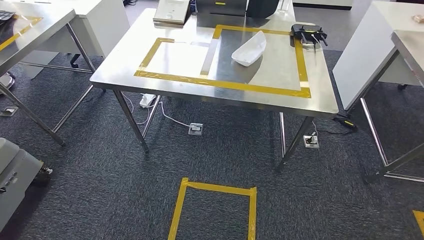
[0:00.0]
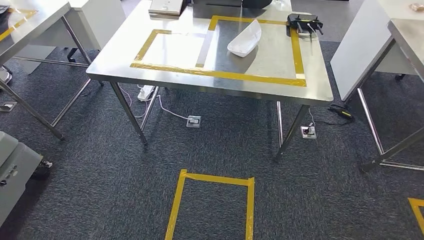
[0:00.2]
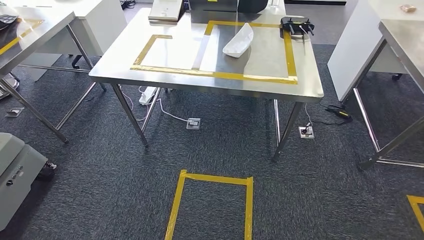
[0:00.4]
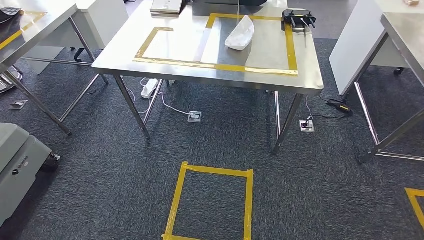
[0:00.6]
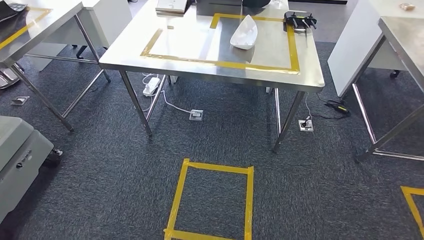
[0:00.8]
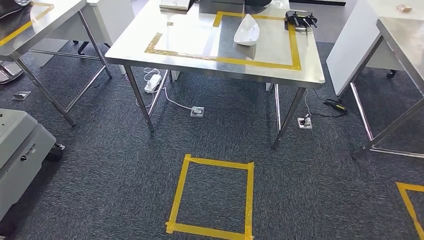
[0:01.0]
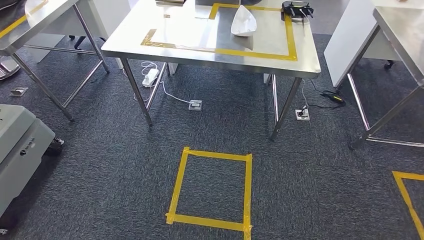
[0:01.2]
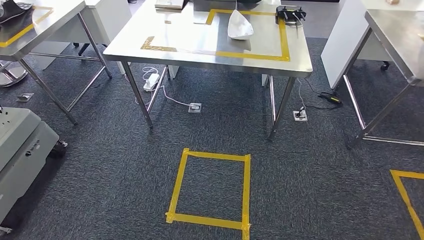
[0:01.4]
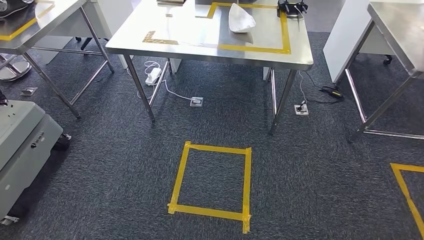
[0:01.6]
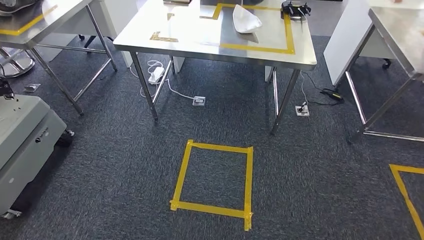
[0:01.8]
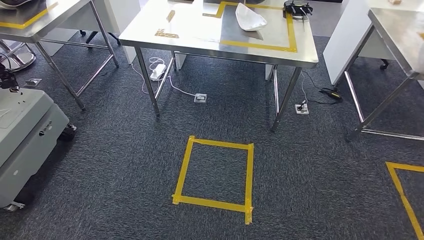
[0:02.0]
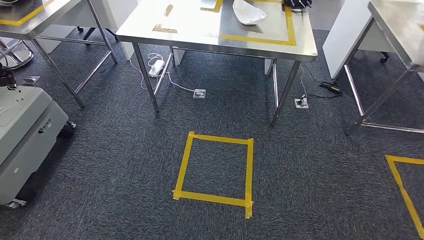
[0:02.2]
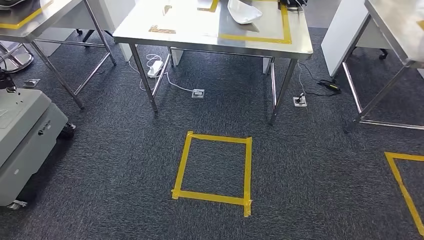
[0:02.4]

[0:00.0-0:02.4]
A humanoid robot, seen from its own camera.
Step, 0:00.0 to 0:02.2: Return to the initial position at the workbench.

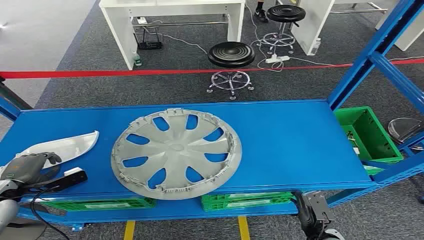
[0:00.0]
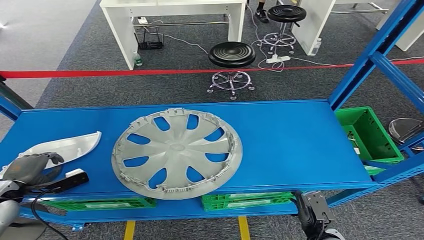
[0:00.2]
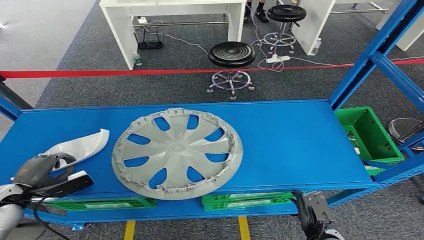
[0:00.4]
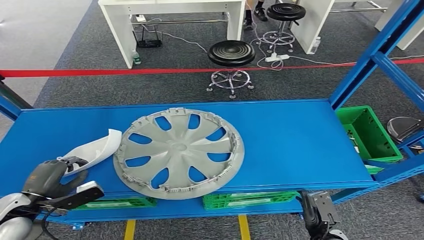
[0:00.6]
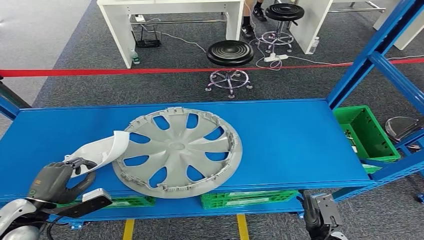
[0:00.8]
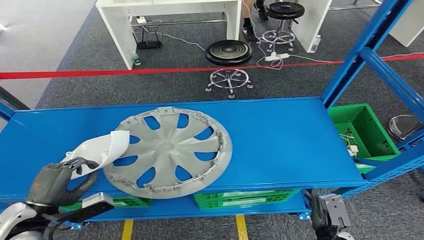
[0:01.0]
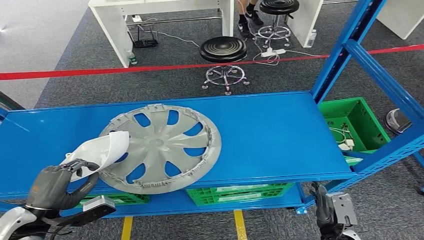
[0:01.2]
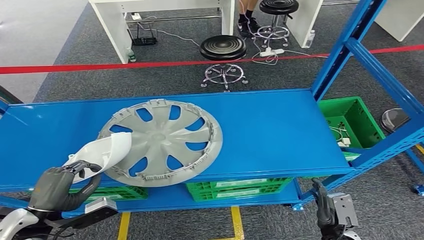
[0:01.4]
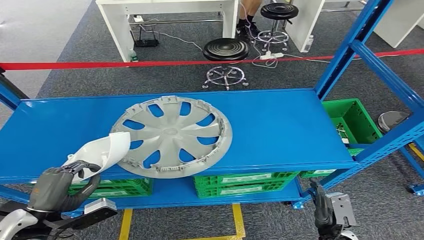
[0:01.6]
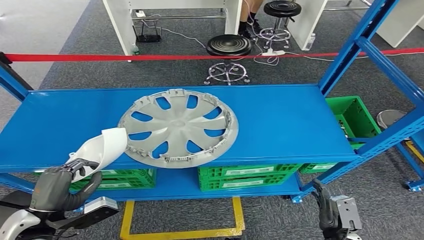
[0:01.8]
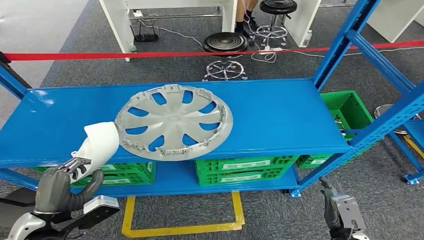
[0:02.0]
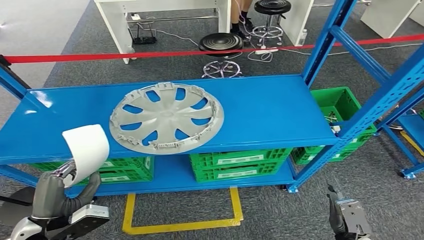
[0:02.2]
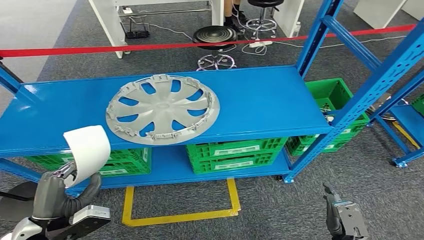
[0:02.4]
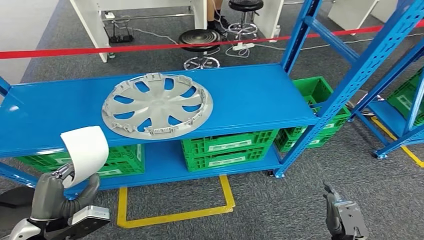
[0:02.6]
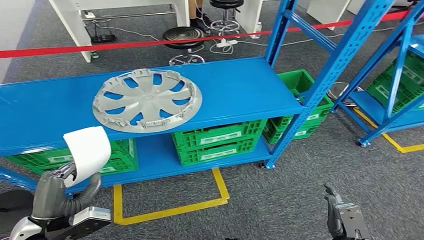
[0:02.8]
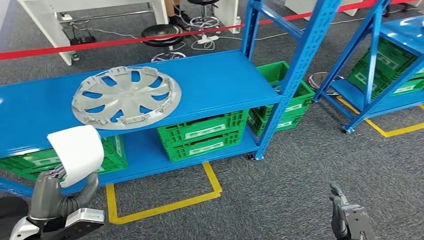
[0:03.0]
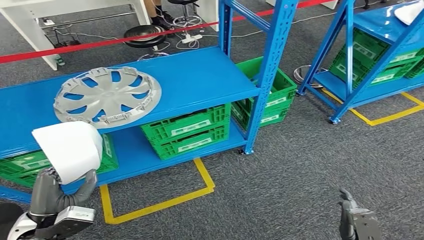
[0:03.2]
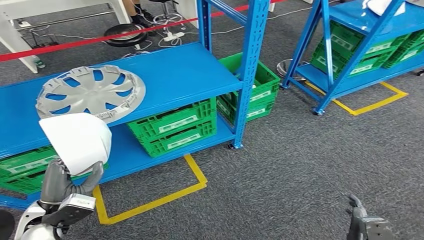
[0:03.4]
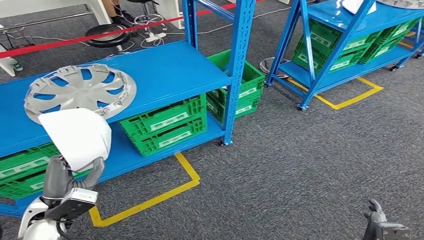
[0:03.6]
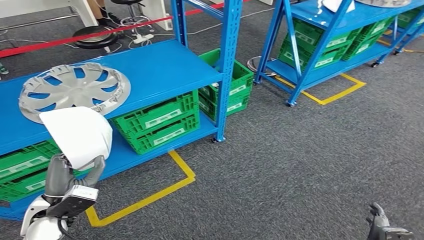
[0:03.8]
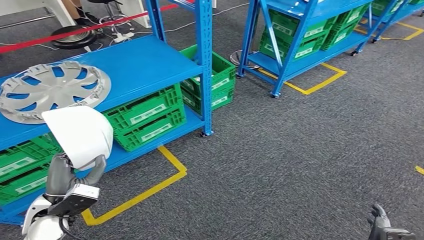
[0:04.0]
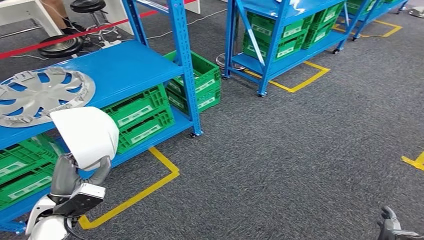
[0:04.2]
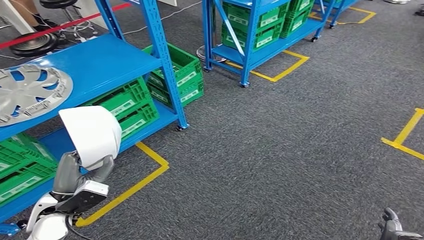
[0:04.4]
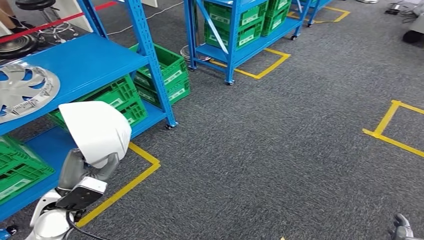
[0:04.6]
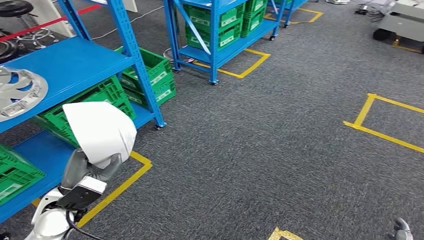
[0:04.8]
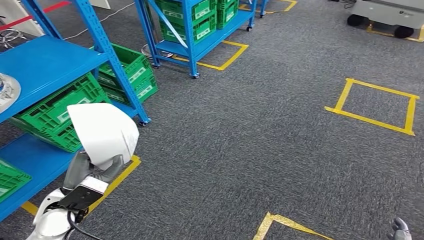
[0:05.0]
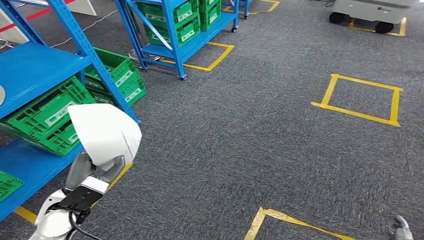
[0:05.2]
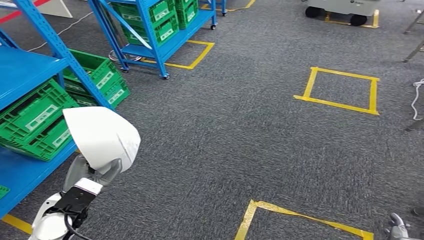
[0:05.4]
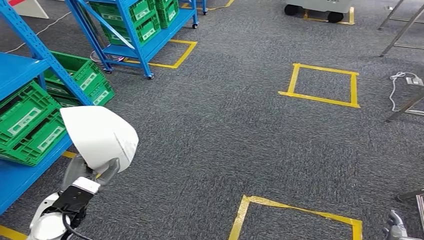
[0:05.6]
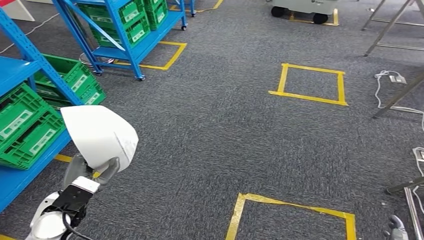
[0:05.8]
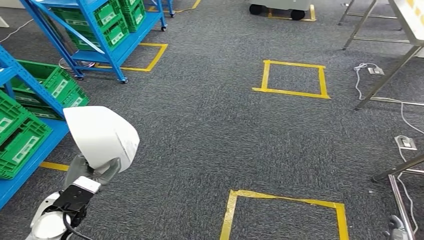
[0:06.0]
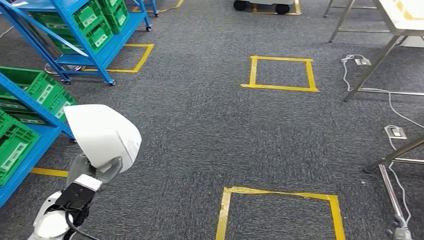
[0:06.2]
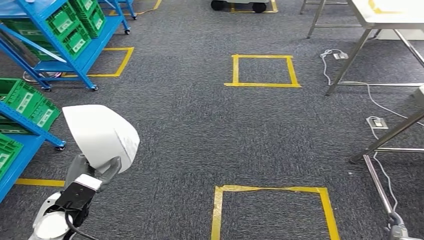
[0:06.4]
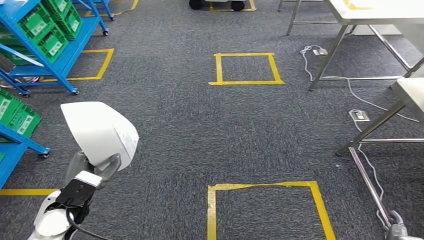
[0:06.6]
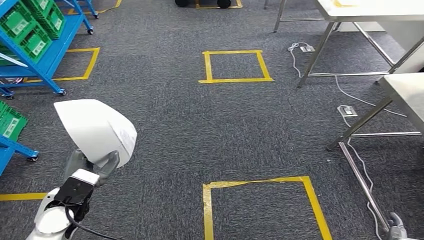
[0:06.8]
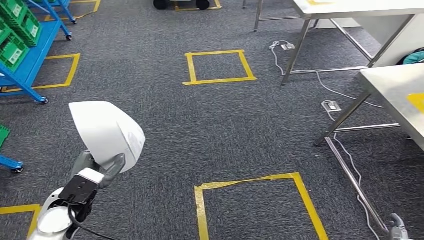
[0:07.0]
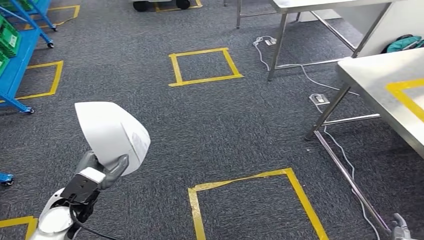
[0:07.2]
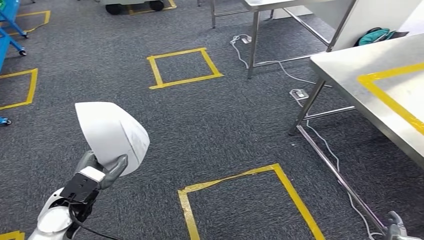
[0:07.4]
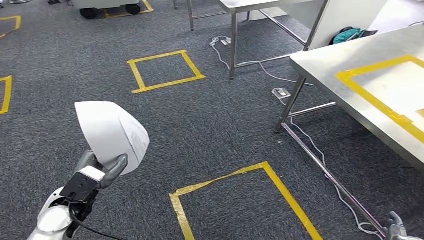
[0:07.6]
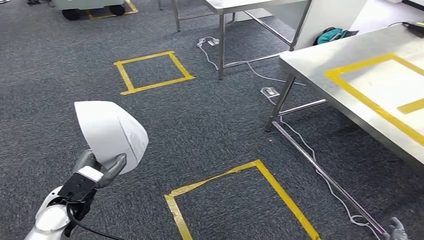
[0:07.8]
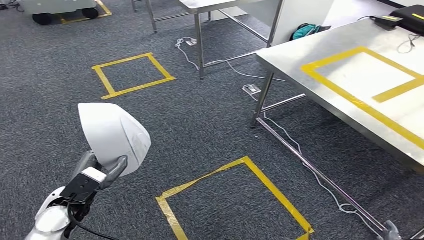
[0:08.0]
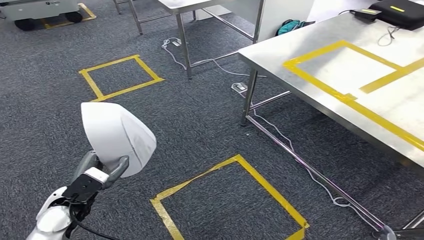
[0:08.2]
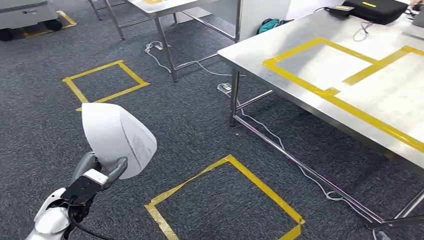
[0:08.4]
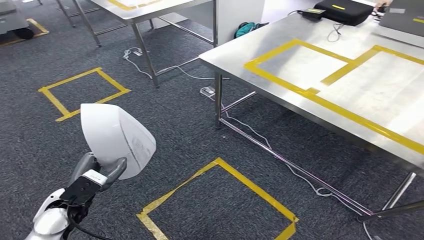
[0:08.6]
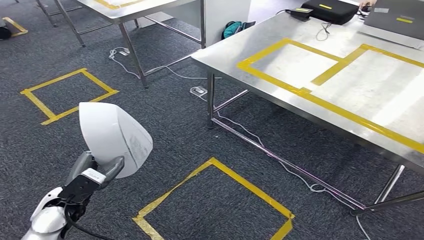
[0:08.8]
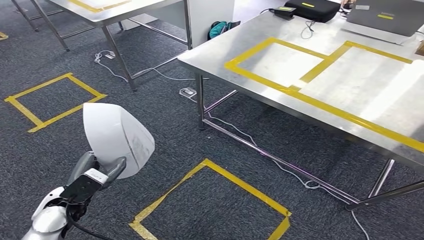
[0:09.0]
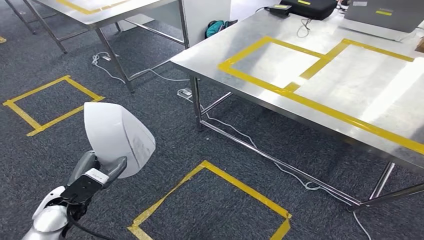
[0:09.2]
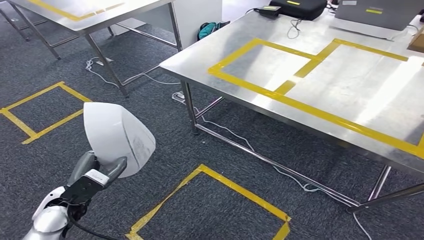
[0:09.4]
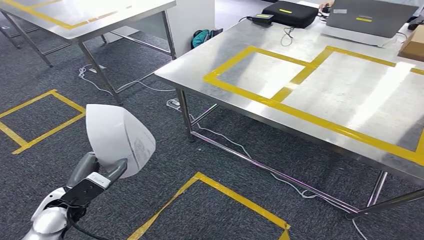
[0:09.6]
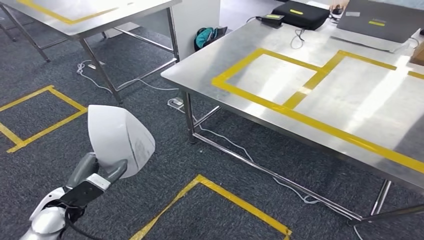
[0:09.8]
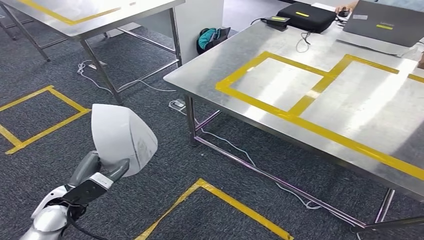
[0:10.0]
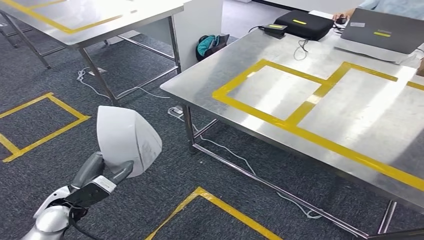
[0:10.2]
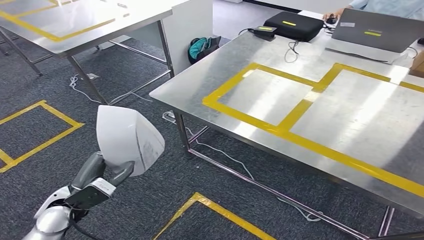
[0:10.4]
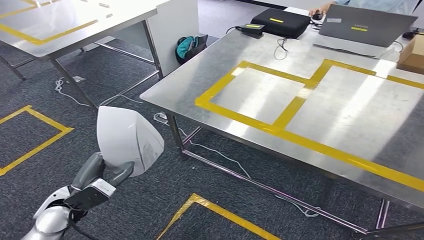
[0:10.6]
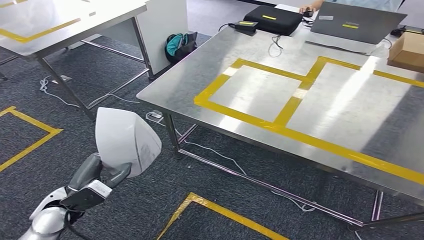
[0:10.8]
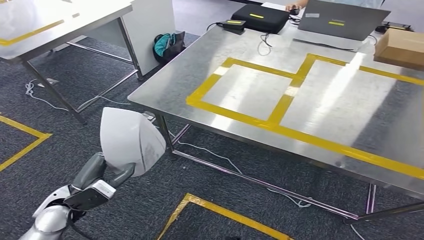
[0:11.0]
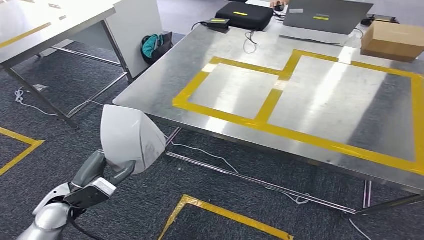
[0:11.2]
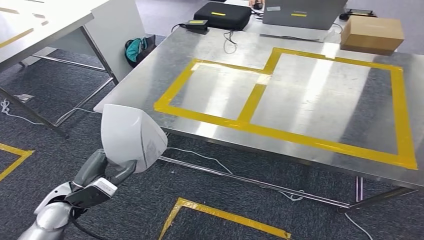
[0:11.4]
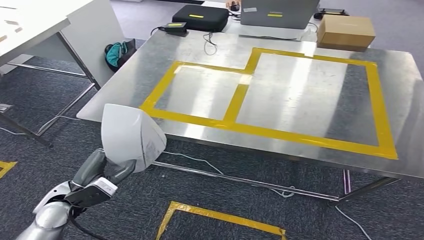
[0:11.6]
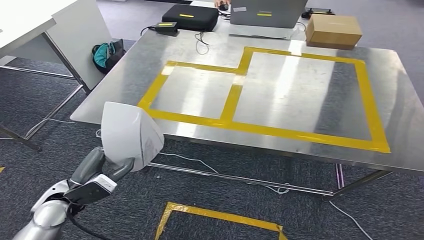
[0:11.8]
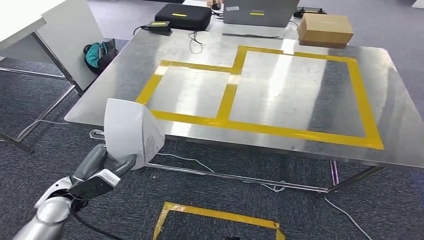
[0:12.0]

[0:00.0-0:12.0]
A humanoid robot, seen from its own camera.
Step, 0:00.0 to 0:01.8: Pick up the small component from the shelf.
Step, 0:02.0 to 0:11.6: Move the small component to the workbench.

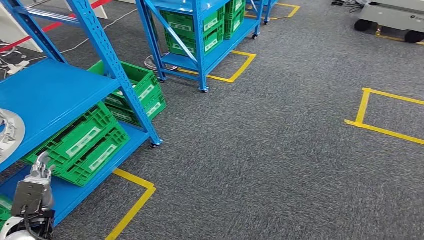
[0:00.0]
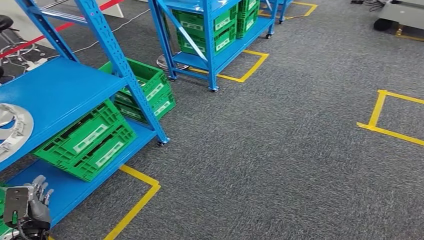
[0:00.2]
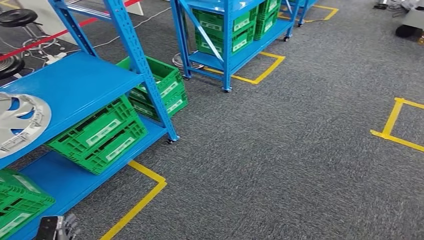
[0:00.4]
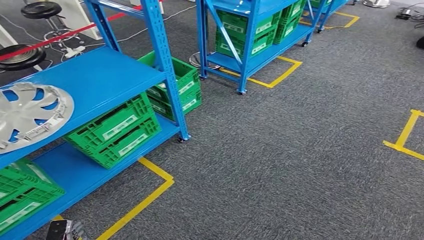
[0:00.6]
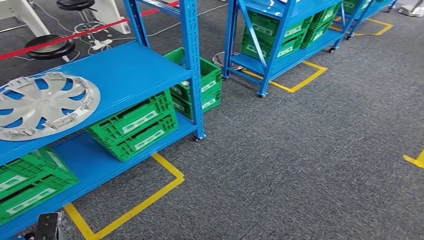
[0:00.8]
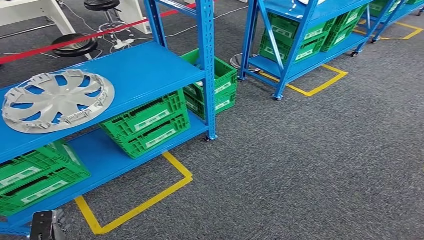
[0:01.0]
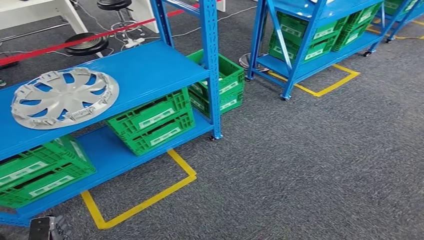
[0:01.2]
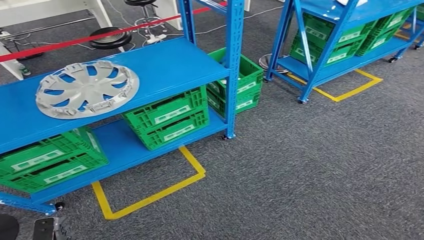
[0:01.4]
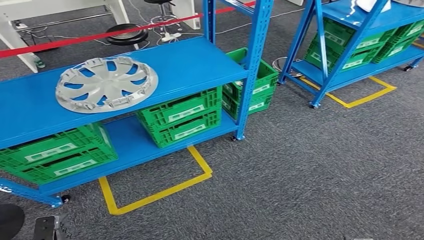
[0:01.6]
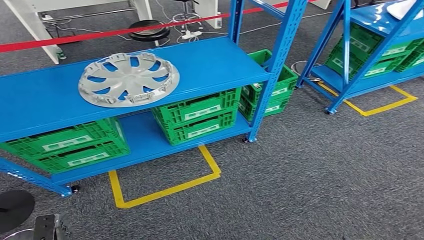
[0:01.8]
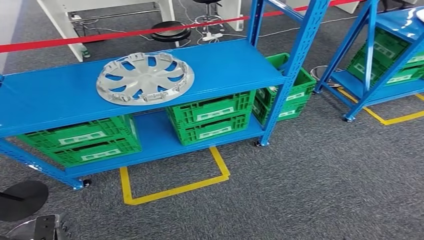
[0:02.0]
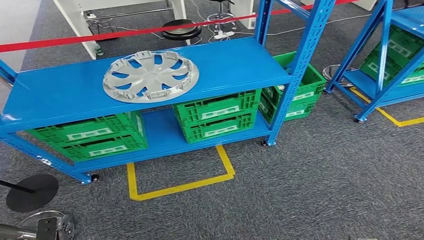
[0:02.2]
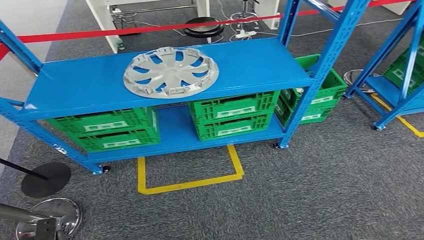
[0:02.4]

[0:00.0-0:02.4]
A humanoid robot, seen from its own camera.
Step, 0:00.0 to 0:02.4: Return to the initial position at the workbench.
